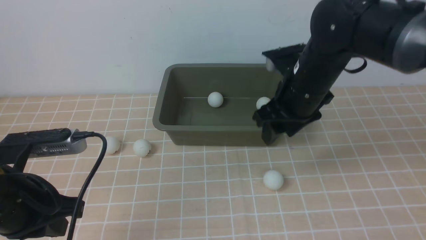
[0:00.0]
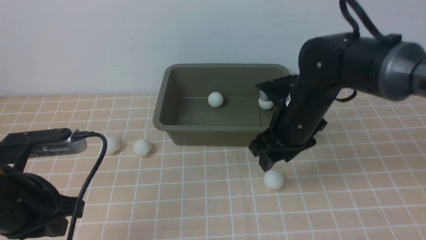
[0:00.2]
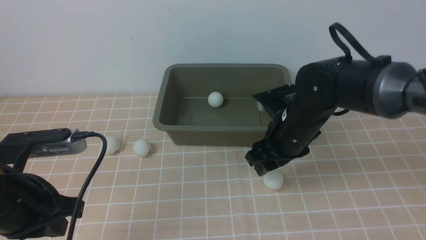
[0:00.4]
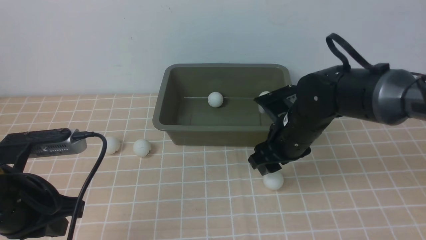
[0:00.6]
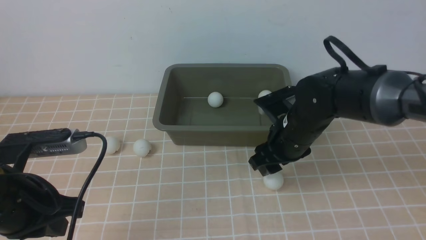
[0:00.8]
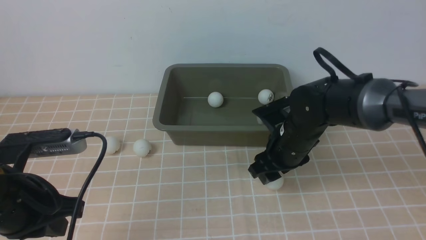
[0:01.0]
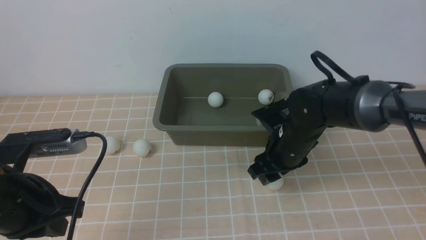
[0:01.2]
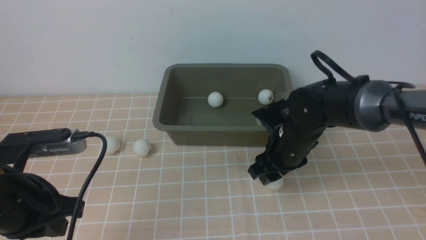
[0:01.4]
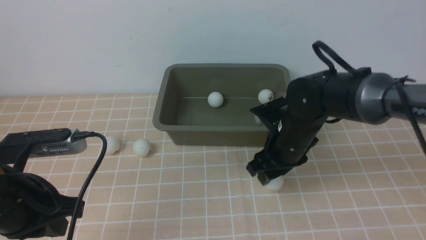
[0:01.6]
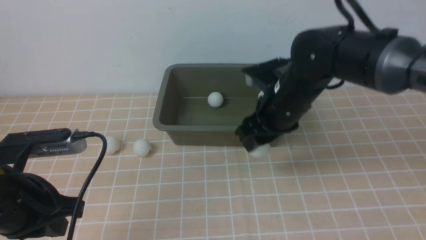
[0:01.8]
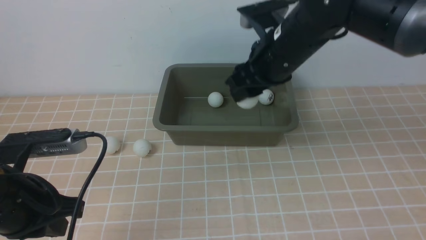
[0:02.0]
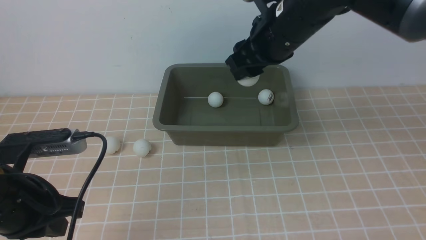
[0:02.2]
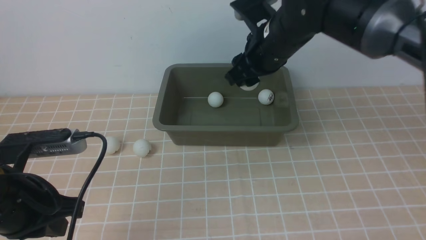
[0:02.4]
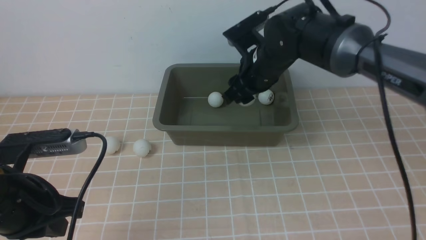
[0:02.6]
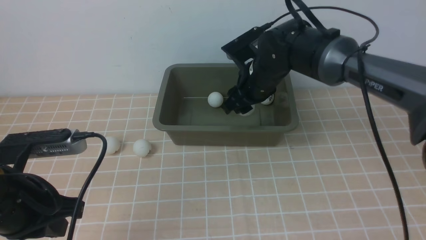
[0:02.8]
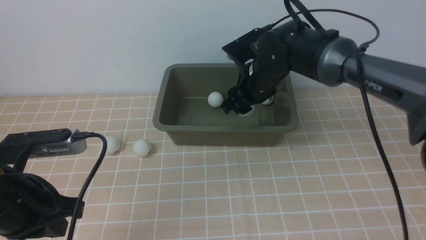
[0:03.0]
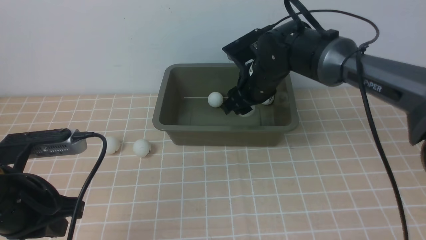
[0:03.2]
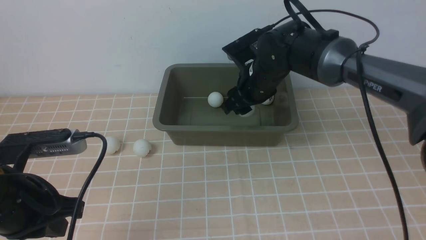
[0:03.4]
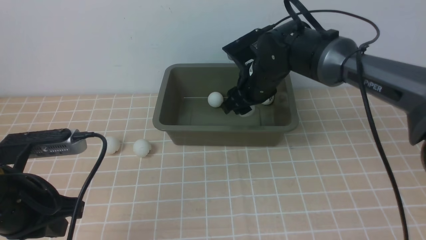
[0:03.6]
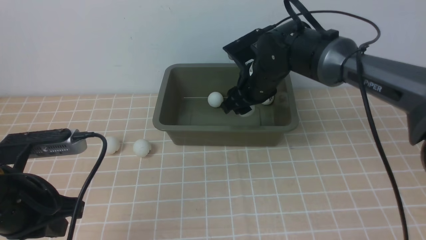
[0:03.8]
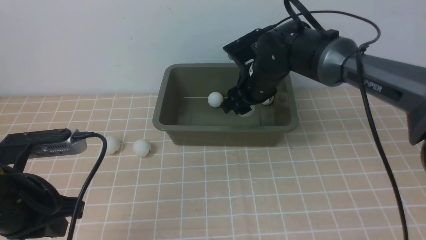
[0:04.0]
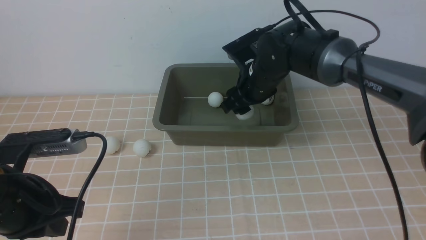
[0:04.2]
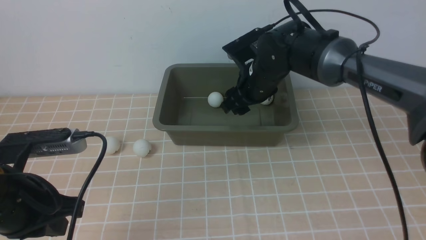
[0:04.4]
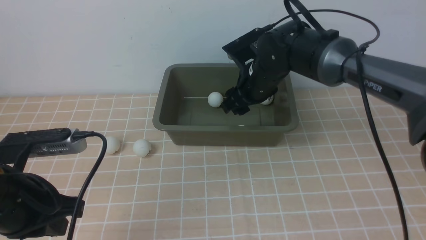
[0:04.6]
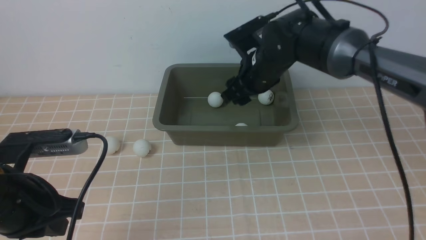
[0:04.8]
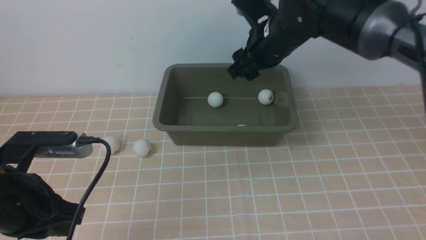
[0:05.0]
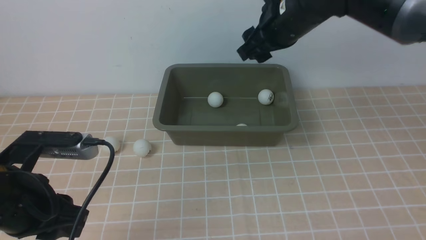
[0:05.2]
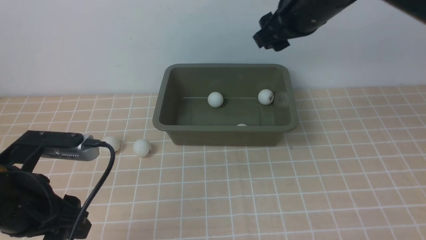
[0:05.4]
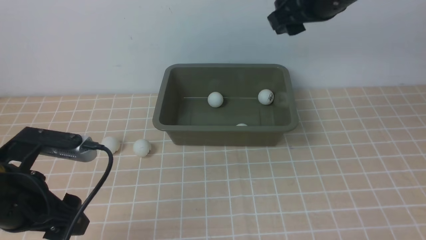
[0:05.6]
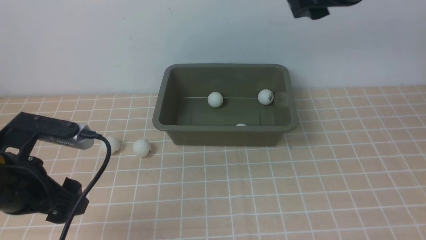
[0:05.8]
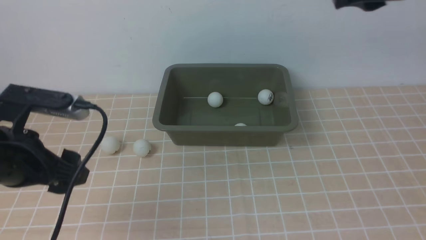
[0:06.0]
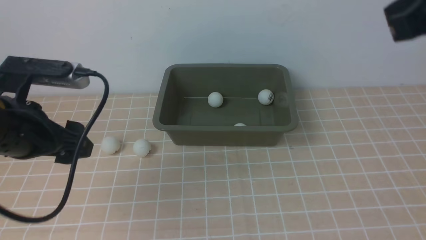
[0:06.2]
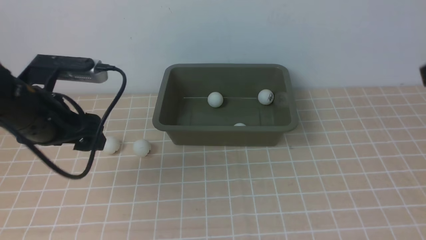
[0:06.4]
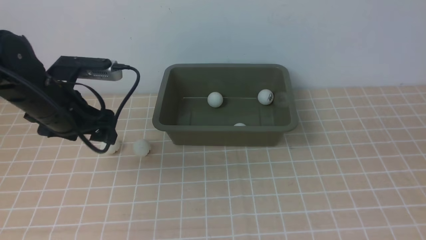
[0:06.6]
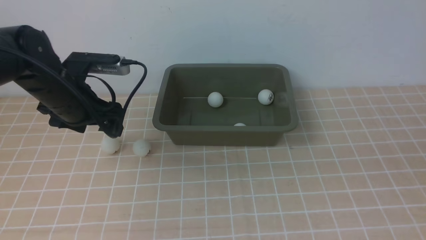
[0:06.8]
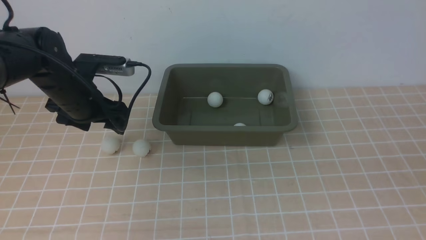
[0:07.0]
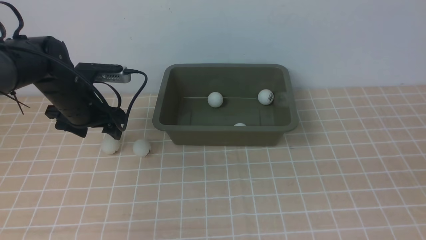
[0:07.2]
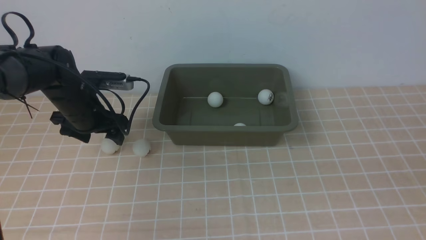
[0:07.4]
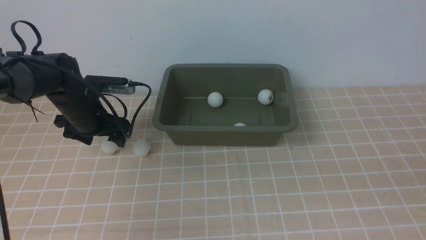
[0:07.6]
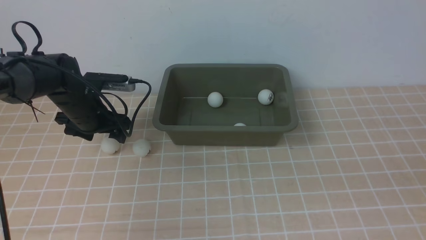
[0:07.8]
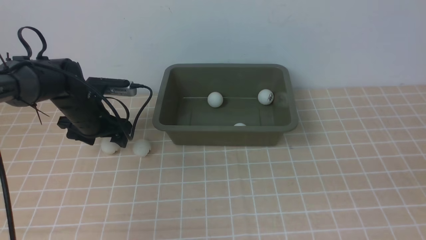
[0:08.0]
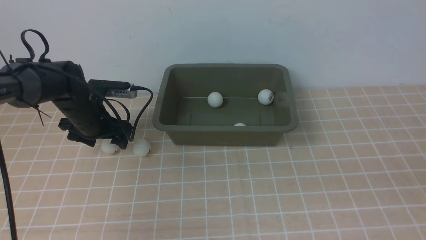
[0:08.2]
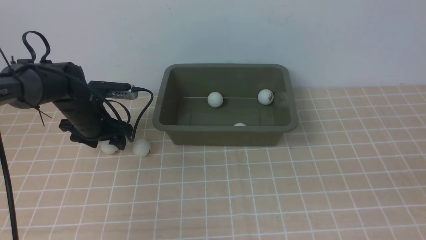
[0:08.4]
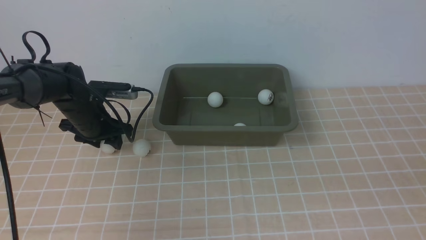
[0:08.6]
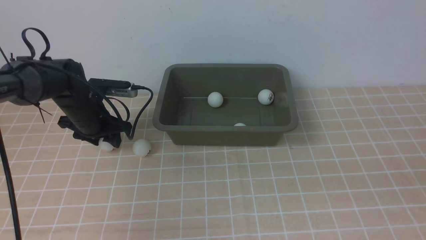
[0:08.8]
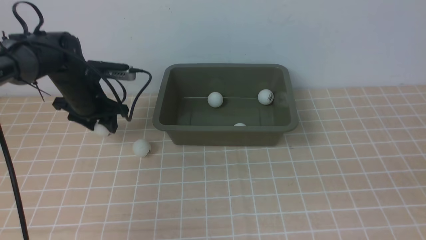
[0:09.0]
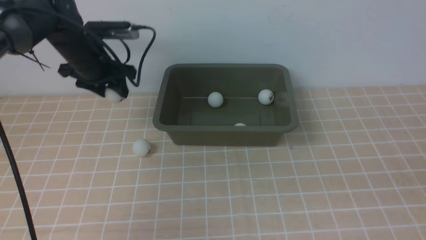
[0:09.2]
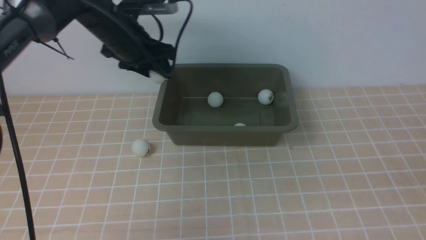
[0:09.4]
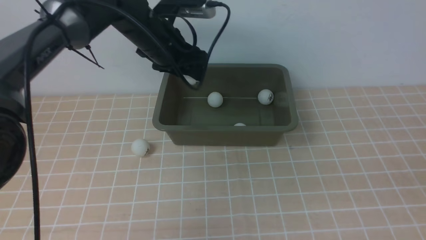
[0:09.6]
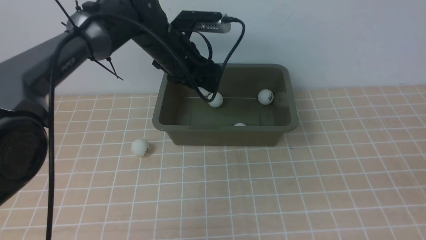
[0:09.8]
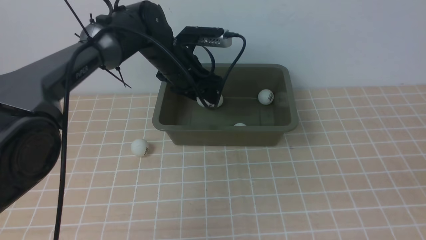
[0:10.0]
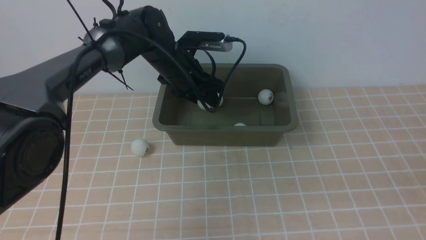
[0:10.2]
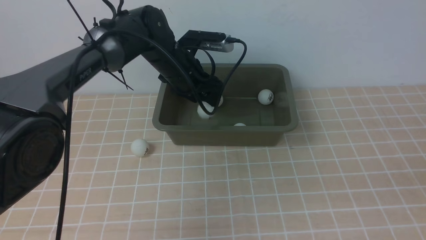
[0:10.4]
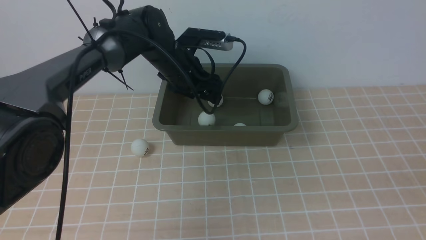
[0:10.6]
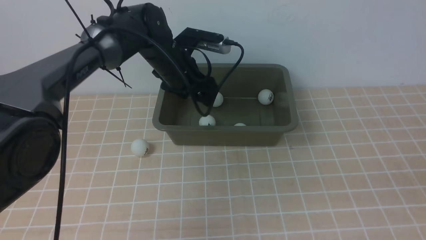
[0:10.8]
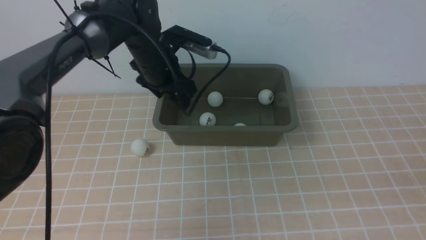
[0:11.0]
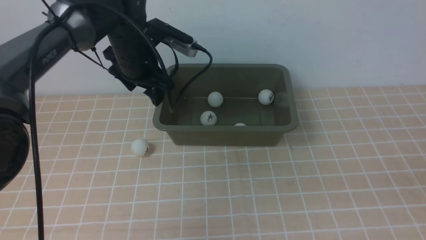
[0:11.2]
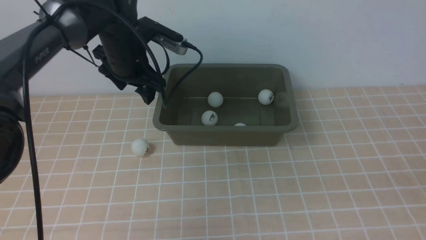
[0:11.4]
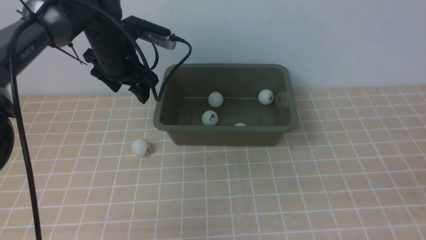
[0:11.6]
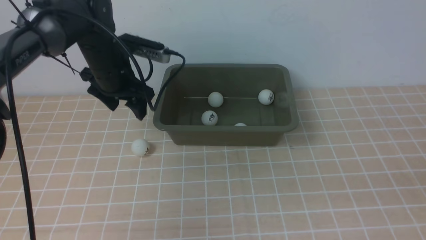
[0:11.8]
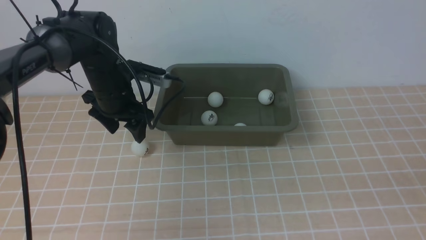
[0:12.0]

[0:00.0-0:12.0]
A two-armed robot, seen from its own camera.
Step, 0:00.0 to 0:01.8: use the right arm to clamp the table tennis ball closest to it.
Step, 0:02.2 to 0:04.4: use the right arm to put the table tennis ball into the box.
Step, 0:04.8 to 0:08.8: use the left arm to clamp the table tennis ball closest to it.
Step, 0:09.0 to 0:10.6: use the left arm to put the table tennis ball into the box.
0:00.0 to 0:01.6: The right gripper travels downward by roughly 5 cm.
0:01.6 to 0:03.0: The right gripper travels forward by roughly 10 cm, and moves about 10 cm upward and comes back.
0:03.0 to 0:04.4: Both grippers stay about where they are.
0:04.4 to 0:06.0: The right gripper moves upward, backward and to the right, approximately 30 cm, and closes, while the left gripper opens its fingers.
0:06.0 to 0:07.6: The left gripper travels forward and downward by about 25 cm. Meanwhile the right gripper moves backward, downward and to the right, about 25 cm.
0:07.6 to 0:09.0: The left gripper closes up.
0:09.0 to 0:10.4: The left gripper goes some 15 cm to the right.
0:10.4 to 0:12.0: The left gripper travels to the left by approximately 10 cm.

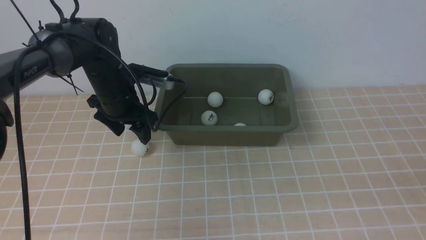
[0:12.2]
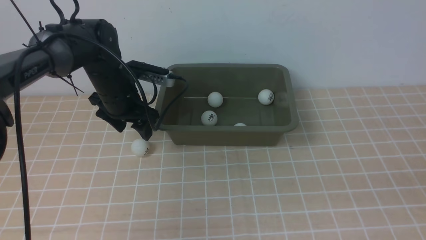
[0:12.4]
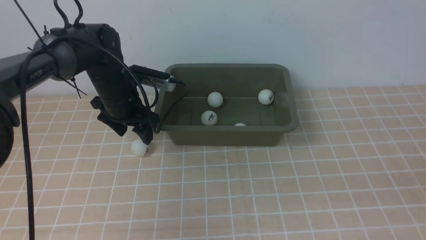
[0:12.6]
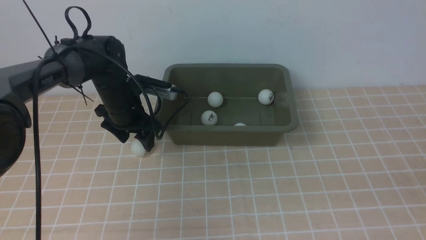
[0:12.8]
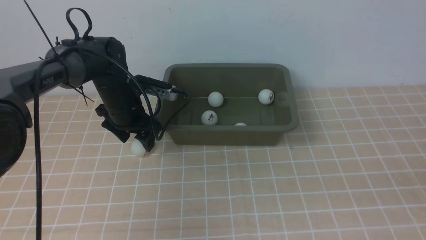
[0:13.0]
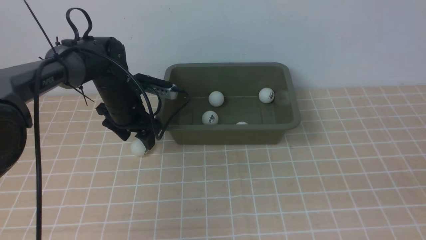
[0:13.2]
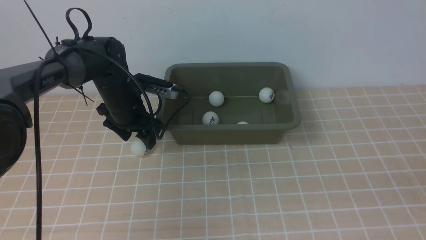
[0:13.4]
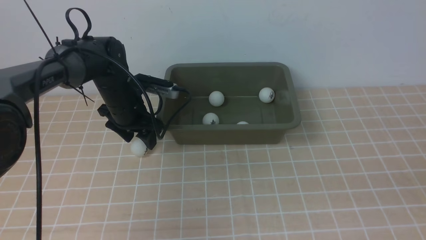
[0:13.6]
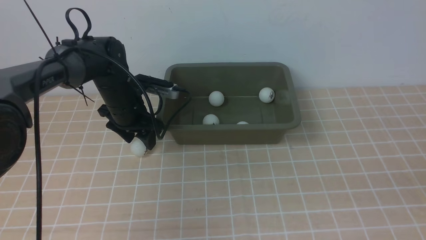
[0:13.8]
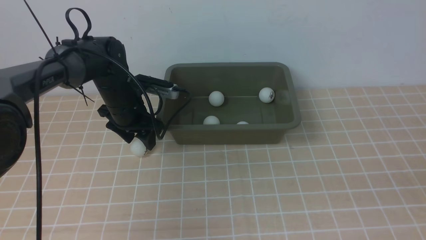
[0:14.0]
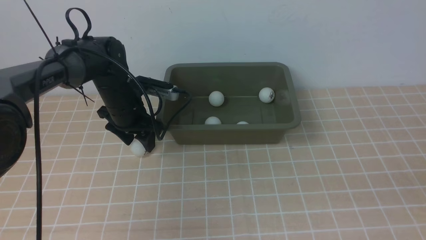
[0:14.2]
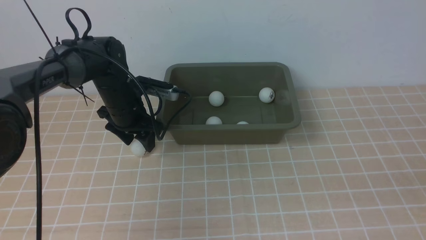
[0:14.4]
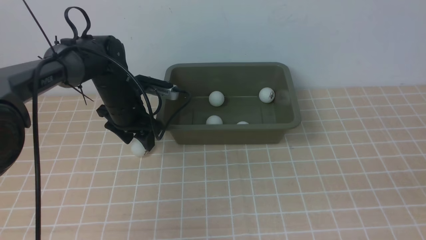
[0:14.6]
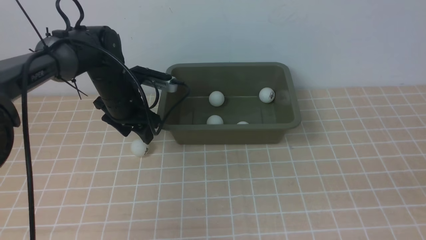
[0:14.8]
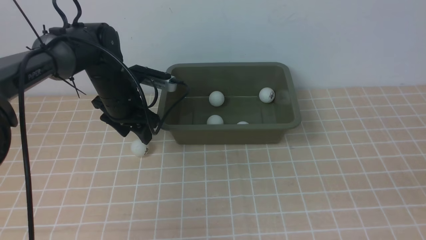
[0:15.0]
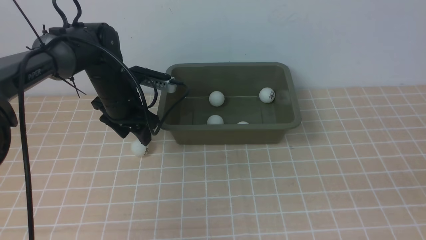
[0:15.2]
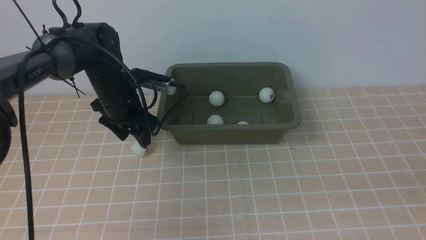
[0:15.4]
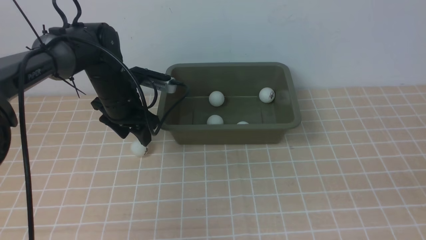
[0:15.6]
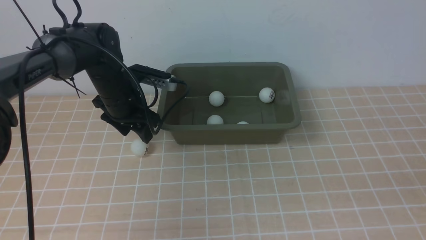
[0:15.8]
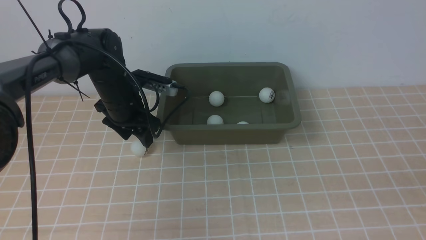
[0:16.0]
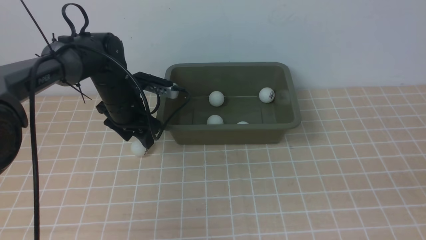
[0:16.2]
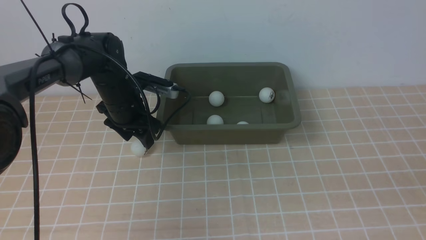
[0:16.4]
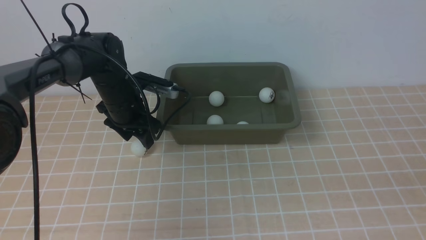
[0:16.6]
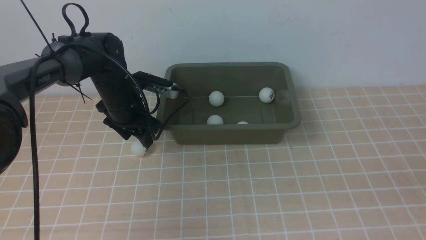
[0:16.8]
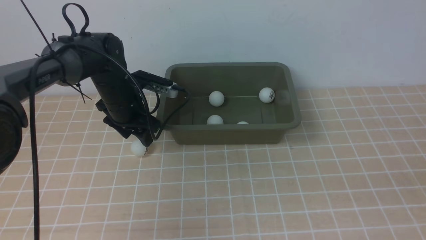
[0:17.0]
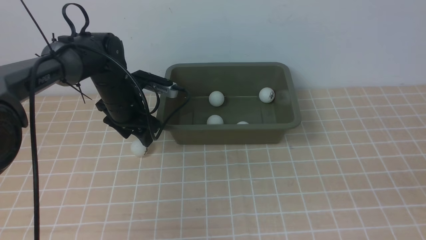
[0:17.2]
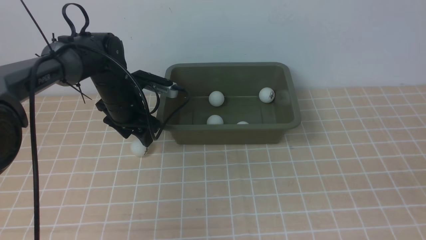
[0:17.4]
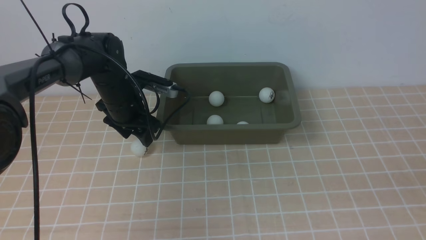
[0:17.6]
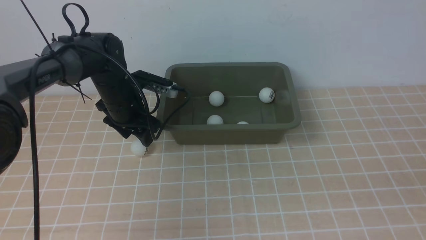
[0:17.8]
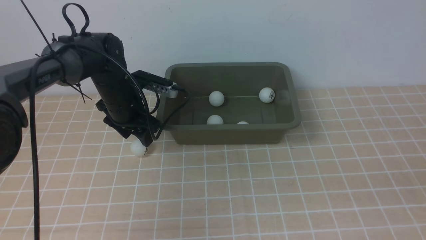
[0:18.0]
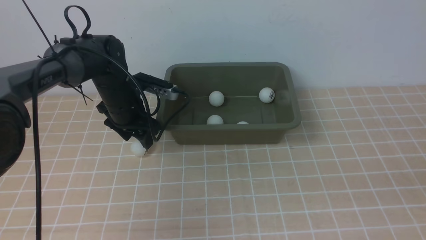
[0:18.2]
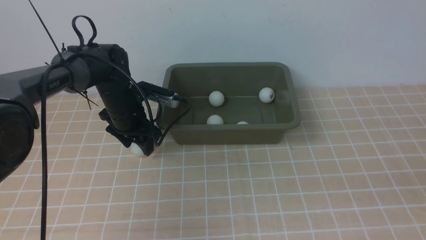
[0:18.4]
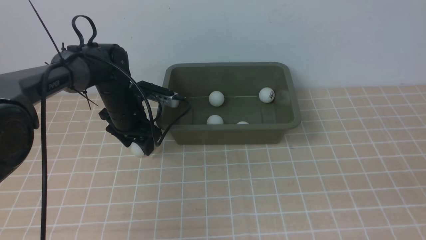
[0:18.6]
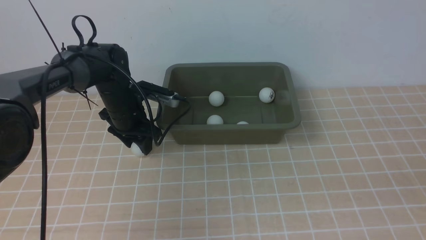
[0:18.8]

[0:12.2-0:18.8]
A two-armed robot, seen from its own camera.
0:12.2 to 0:18.8: The grippers stay close to where they were, moving slightly.
